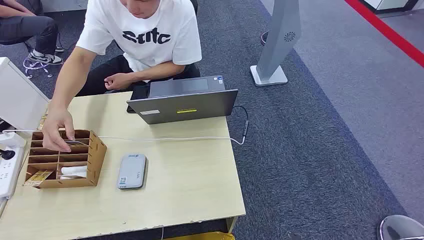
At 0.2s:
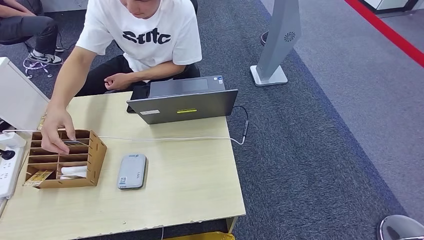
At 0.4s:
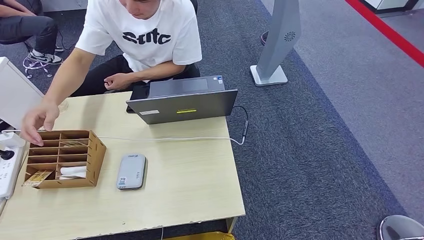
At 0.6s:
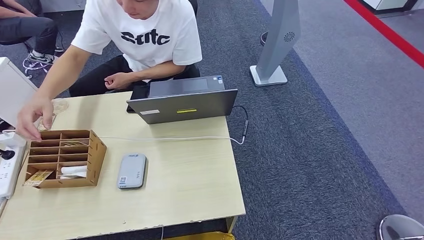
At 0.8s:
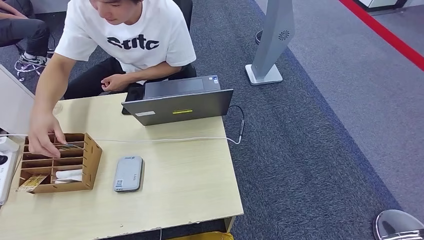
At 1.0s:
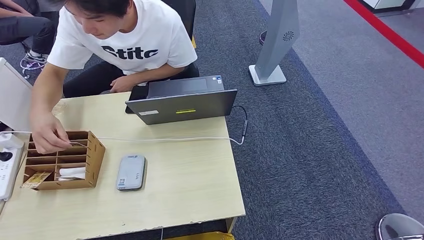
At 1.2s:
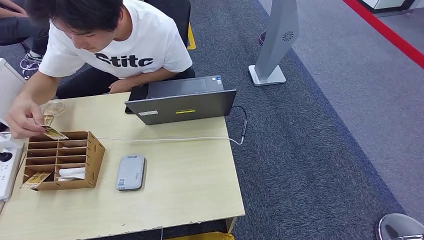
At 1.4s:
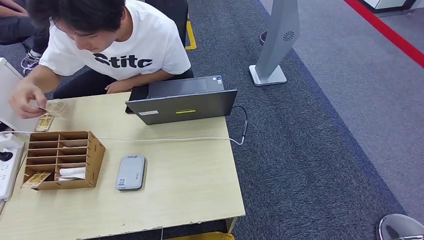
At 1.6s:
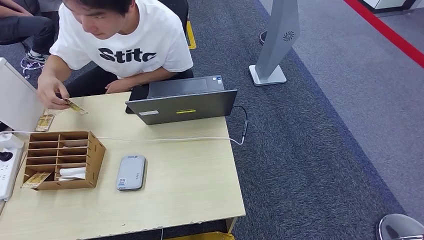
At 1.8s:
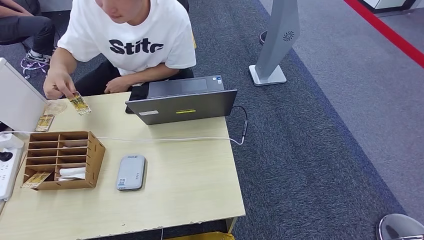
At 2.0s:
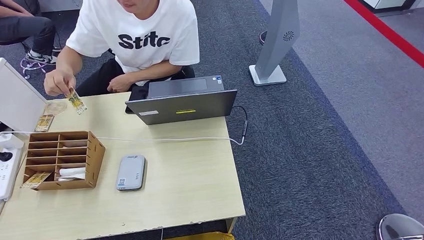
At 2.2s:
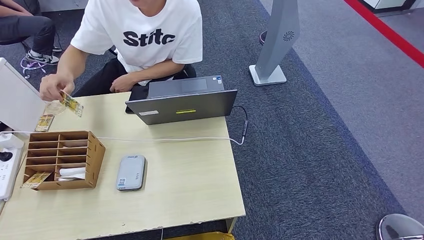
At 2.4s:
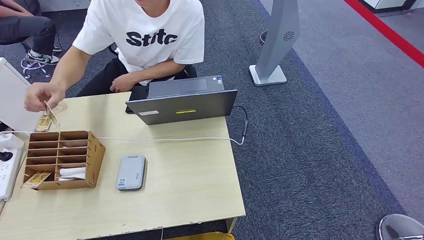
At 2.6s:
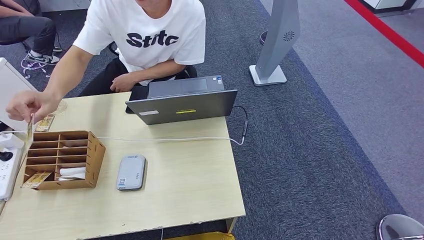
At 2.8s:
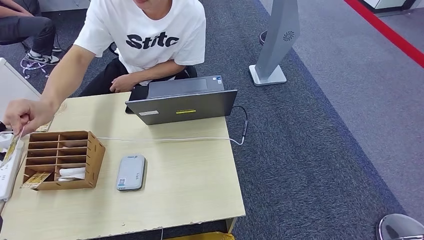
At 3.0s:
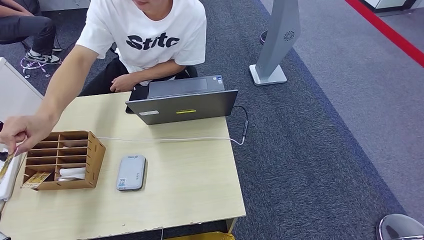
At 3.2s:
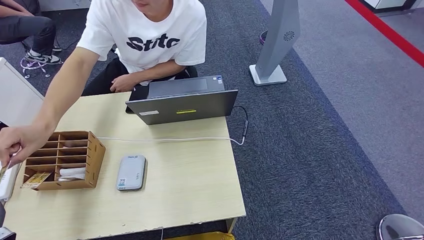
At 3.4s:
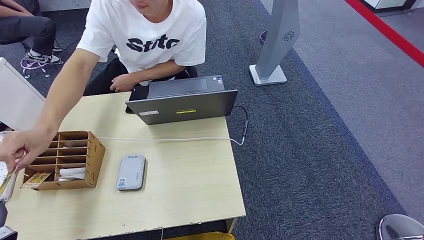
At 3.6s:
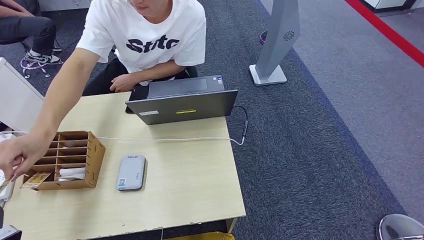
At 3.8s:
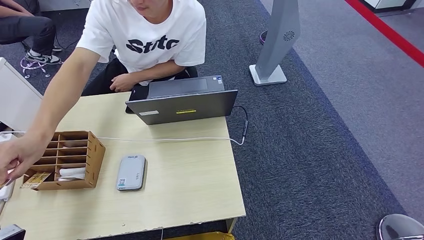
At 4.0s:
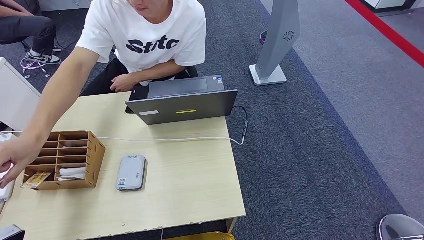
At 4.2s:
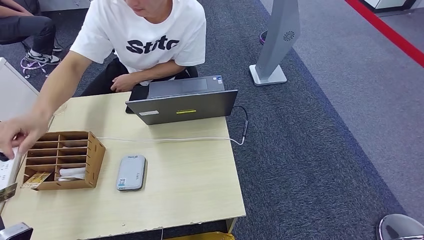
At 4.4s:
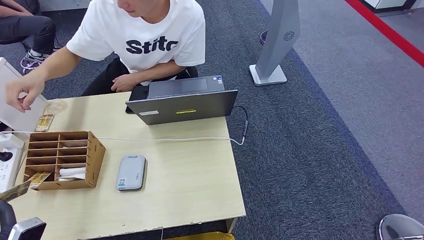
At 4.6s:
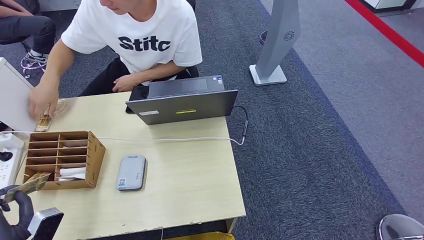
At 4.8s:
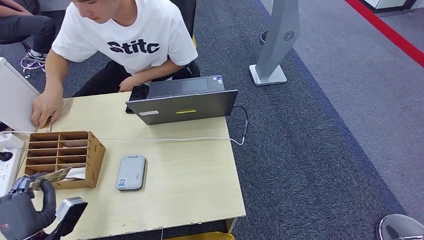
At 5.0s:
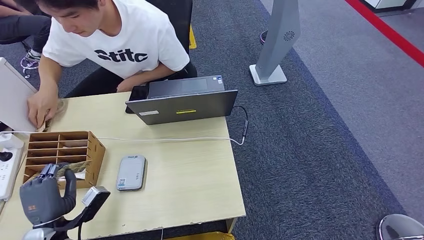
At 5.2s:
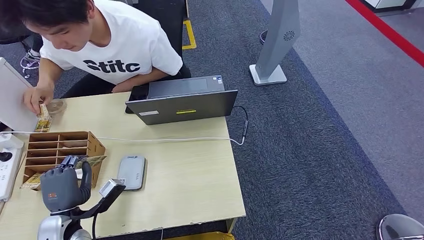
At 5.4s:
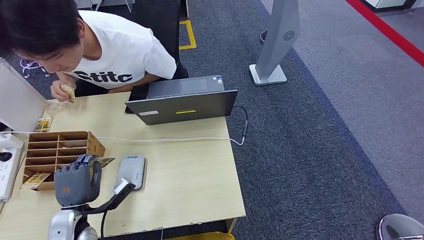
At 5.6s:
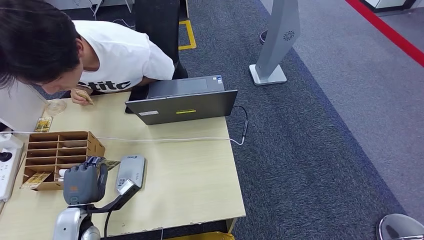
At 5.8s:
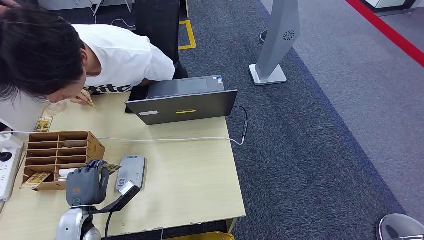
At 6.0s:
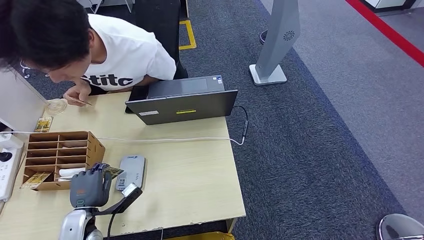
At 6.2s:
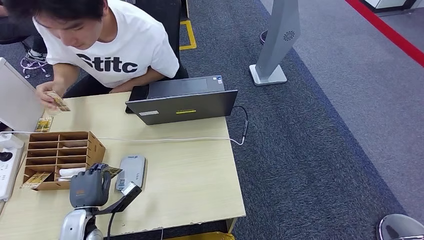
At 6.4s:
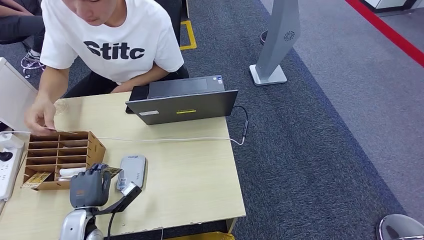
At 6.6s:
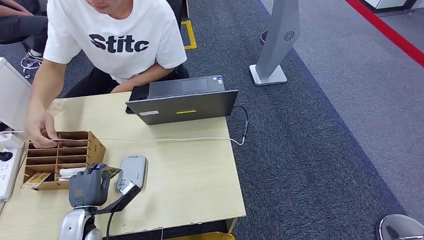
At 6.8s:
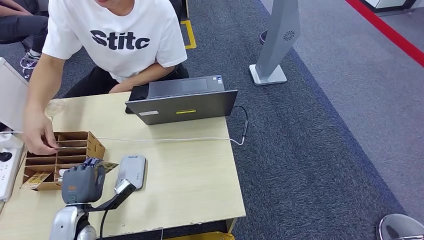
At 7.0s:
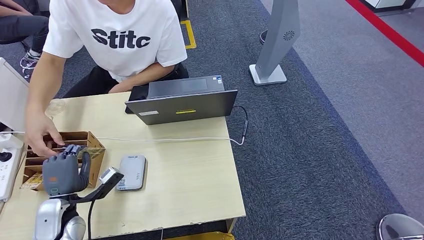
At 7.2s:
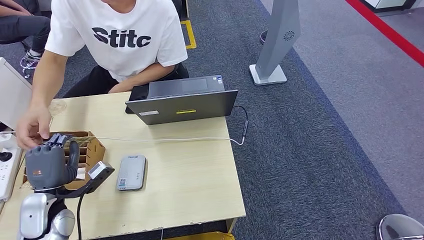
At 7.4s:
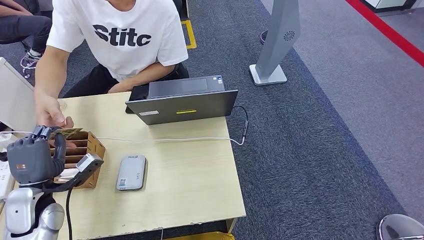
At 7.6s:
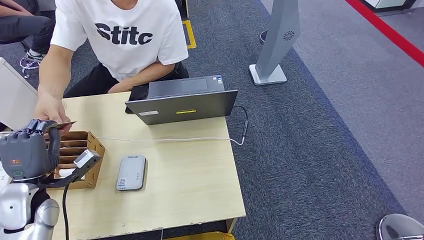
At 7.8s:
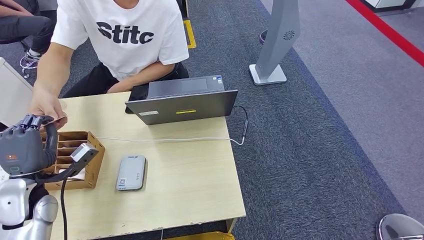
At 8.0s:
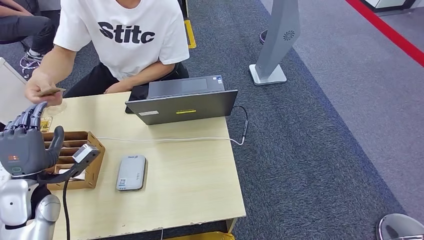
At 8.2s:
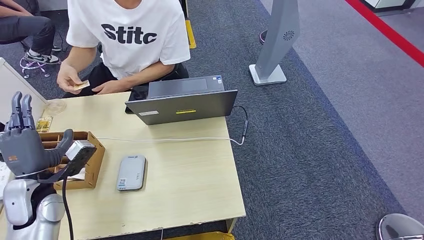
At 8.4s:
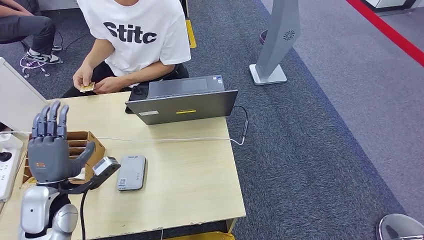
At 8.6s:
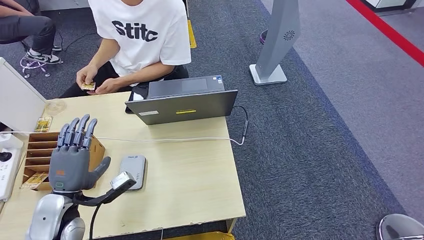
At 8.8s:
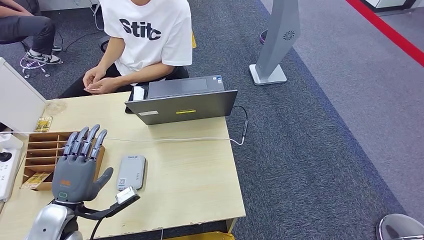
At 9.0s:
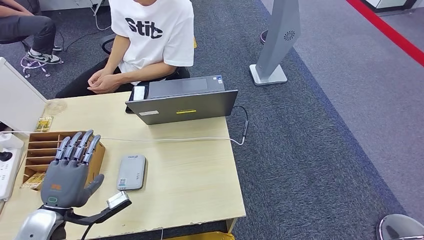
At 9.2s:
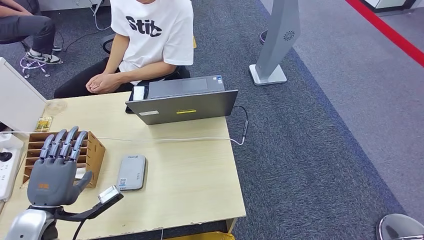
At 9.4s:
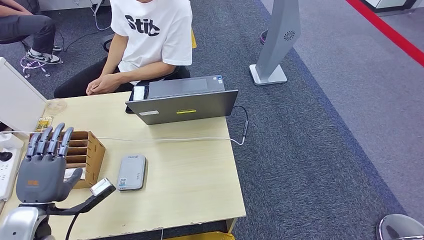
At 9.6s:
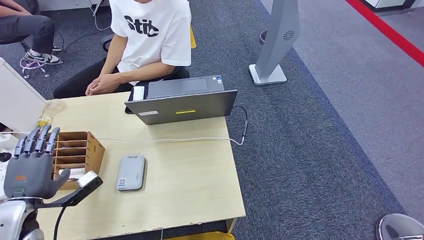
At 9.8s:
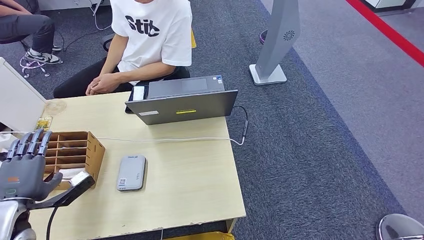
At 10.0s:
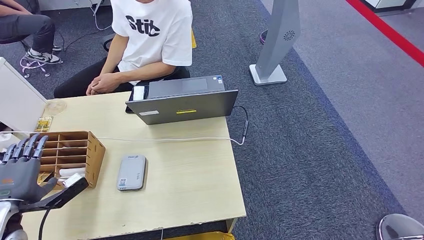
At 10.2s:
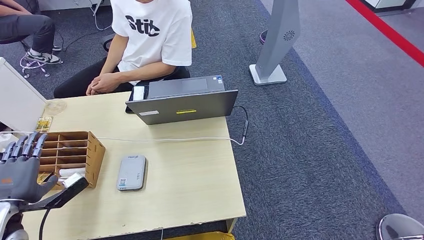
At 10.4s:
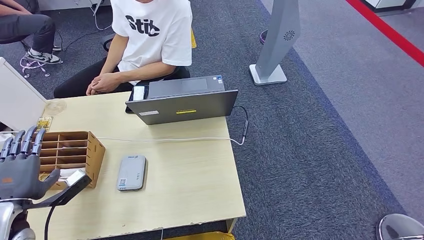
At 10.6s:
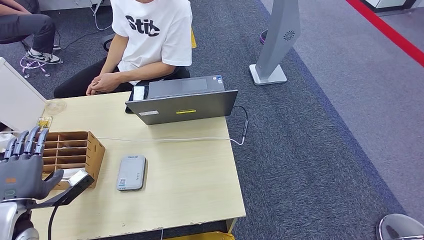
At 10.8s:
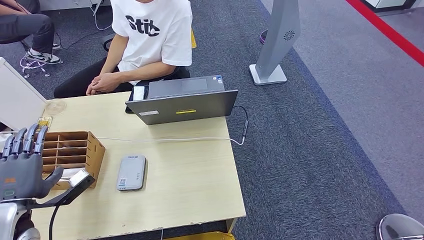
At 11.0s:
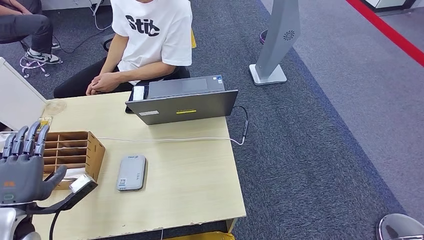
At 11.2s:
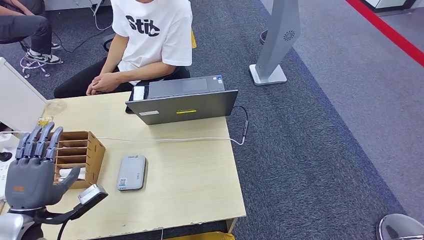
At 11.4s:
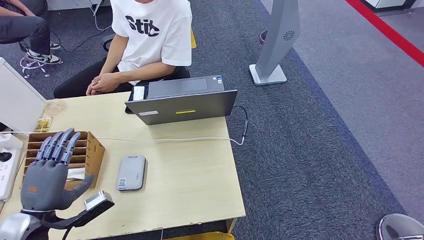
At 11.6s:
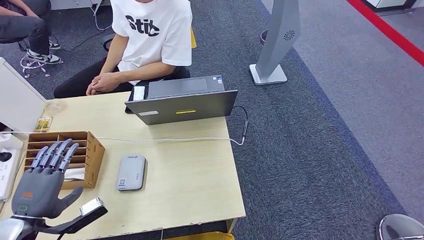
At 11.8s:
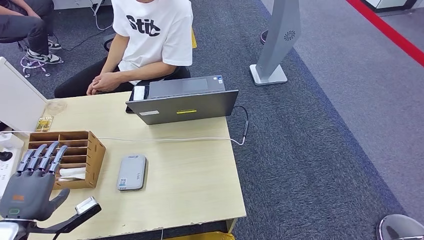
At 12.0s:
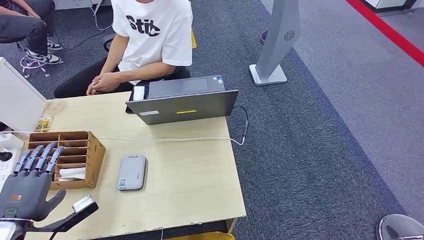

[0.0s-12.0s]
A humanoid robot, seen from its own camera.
Step, 0.0s to 4.8s: Take the ID card from the person's hand.
Step, 5.0s to 7.6s: Place the ID card on the card reader.
Step, 7.8s to 11.0s: Hand the ID card to the person.
1.6s to 3.0s: The left hand is displaced forward by roughly 10 cm.
3.0s to 4.4s: There are only small adjustments of the hands.
9.0s to 10.4s: The left hand goes roughly 10 cm to the left.

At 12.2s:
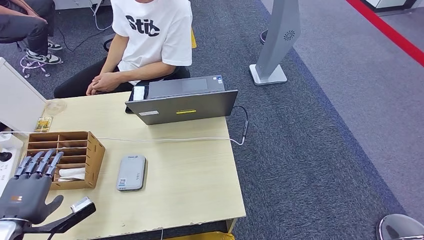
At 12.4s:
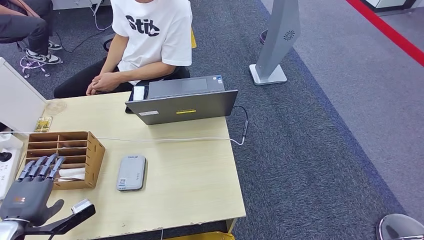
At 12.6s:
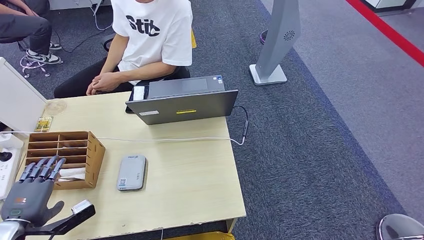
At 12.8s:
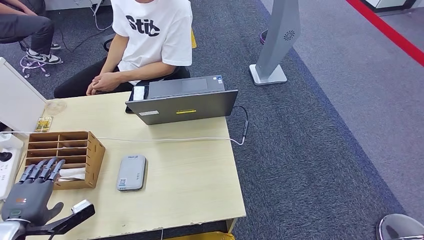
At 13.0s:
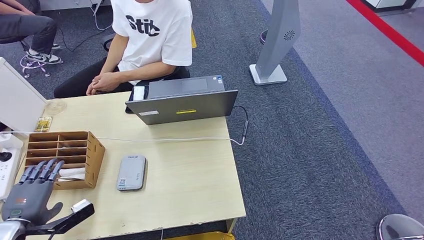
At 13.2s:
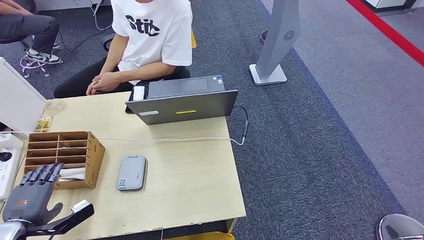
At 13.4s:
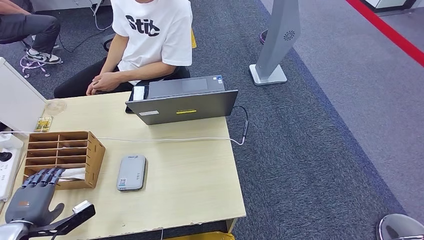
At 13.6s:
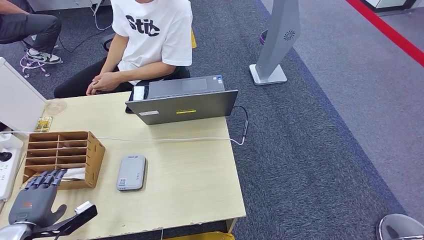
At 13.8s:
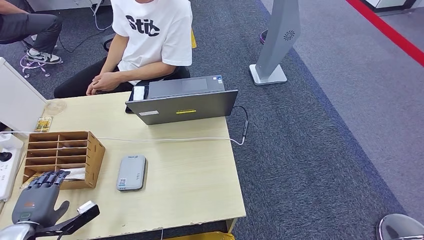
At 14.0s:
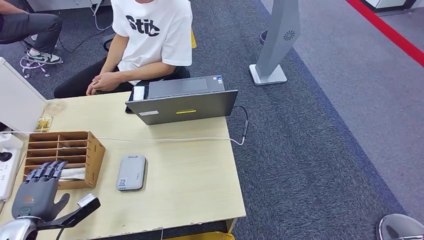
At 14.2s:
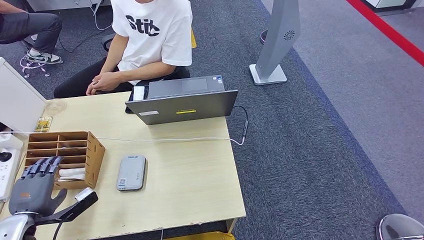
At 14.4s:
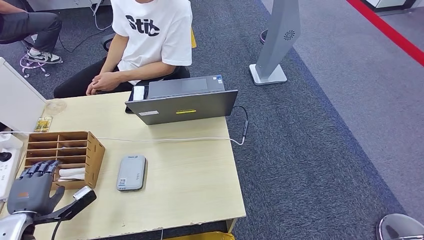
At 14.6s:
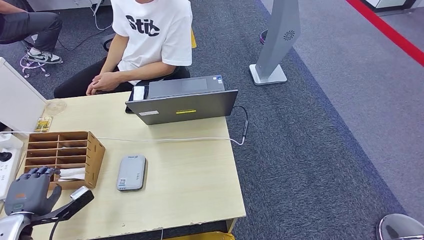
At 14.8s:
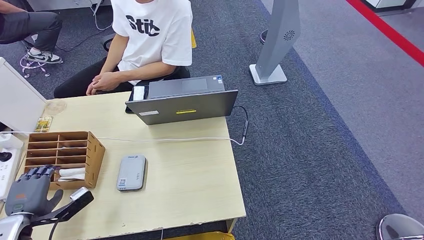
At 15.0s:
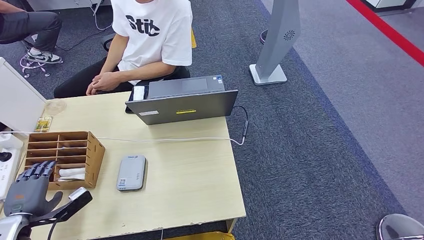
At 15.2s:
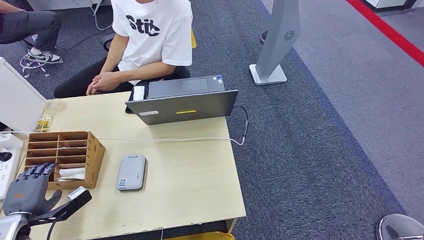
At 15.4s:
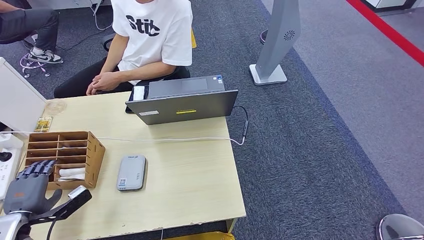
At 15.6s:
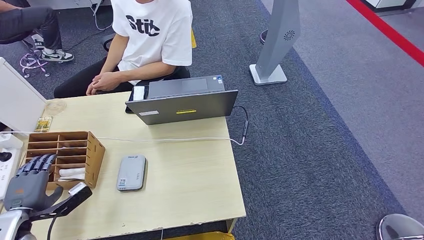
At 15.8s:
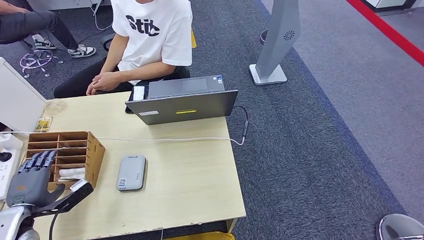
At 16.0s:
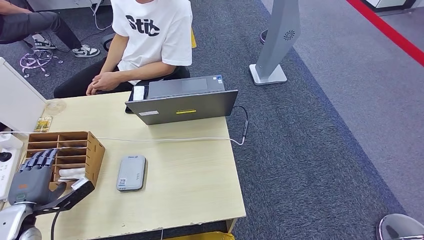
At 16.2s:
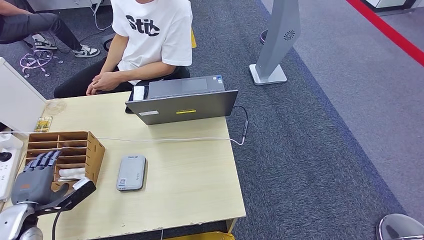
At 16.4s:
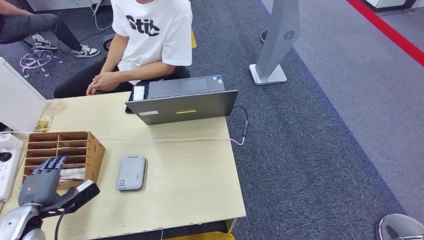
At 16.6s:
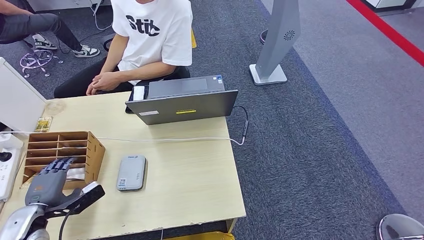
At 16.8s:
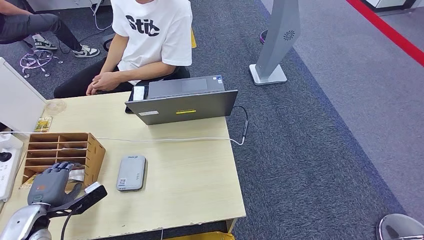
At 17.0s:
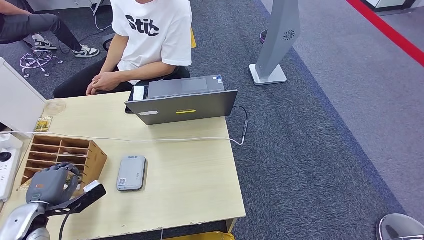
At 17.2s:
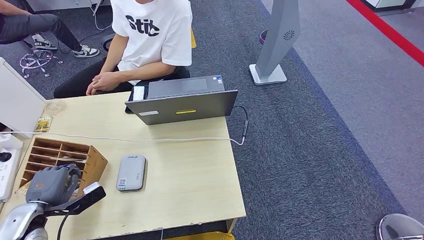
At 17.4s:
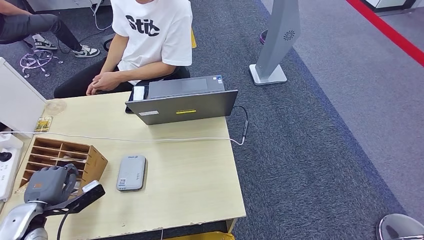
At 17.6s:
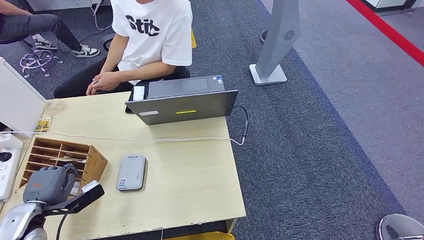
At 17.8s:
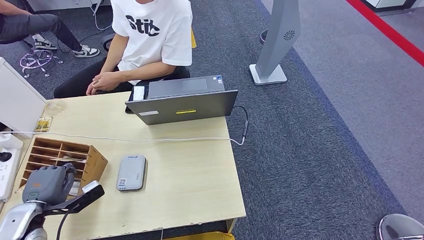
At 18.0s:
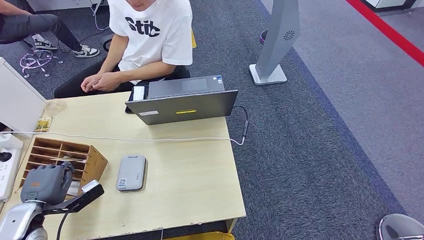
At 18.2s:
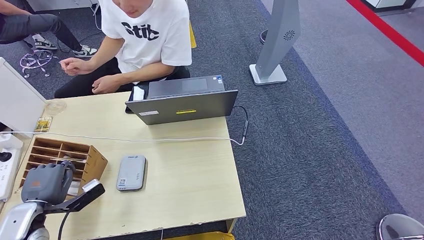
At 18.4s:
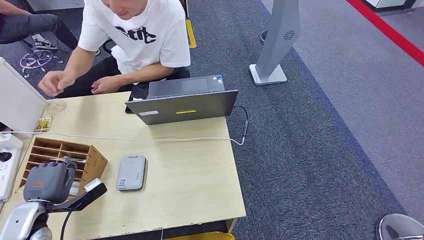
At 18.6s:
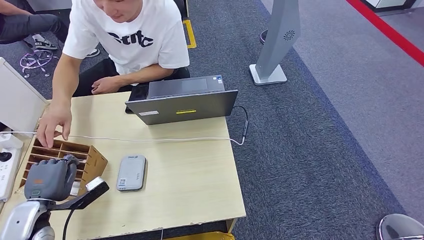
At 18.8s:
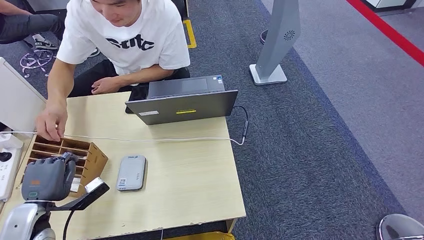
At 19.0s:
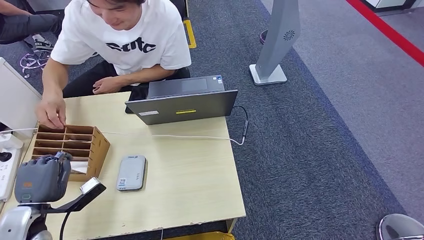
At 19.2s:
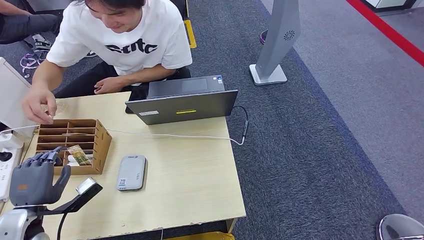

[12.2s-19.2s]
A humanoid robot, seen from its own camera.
12.2s to 13.6s: The left hand goes some 5 cm downward.
13.6s to 17.8s: The hands stay close to where they were, moving slightly.
